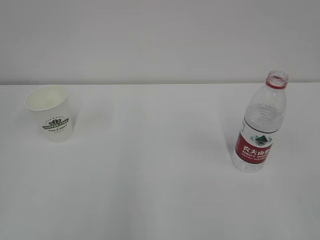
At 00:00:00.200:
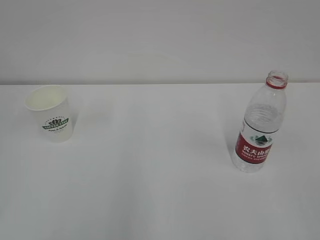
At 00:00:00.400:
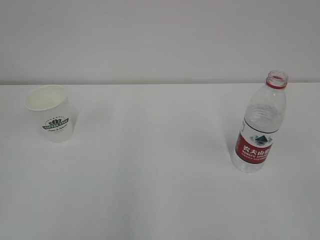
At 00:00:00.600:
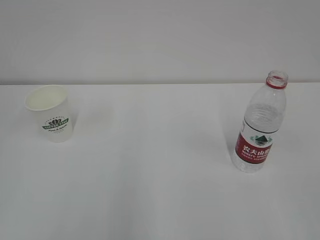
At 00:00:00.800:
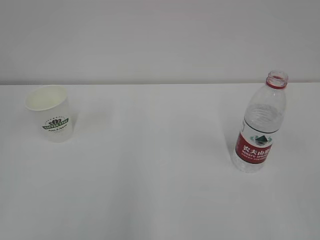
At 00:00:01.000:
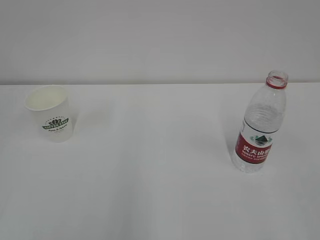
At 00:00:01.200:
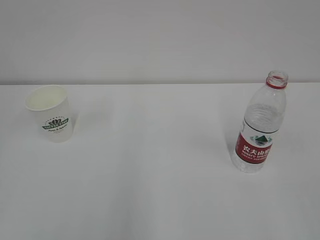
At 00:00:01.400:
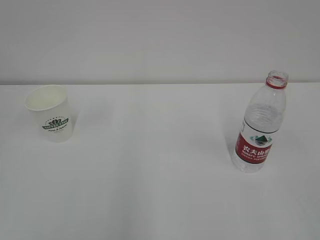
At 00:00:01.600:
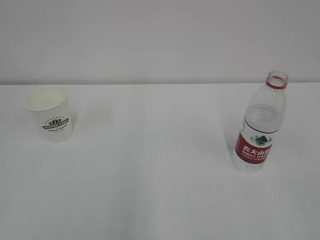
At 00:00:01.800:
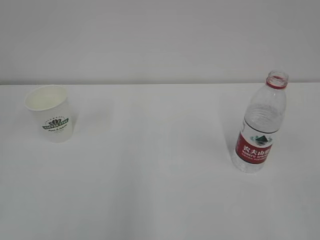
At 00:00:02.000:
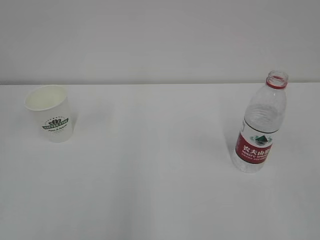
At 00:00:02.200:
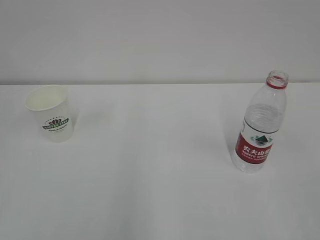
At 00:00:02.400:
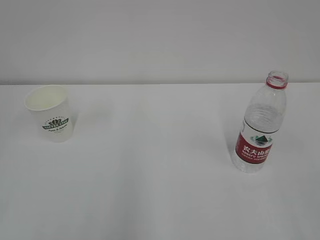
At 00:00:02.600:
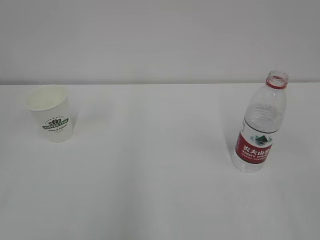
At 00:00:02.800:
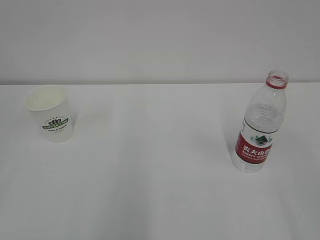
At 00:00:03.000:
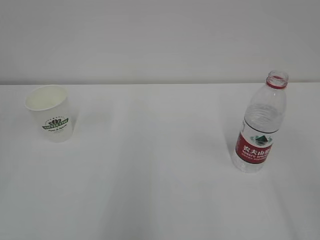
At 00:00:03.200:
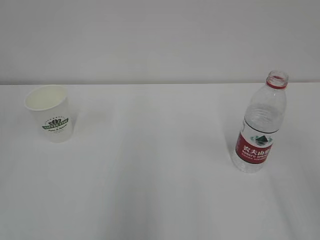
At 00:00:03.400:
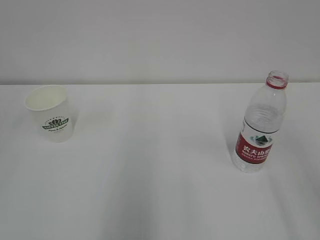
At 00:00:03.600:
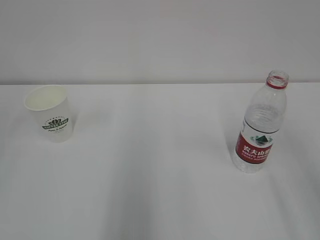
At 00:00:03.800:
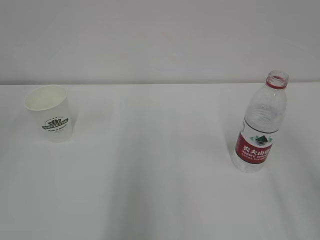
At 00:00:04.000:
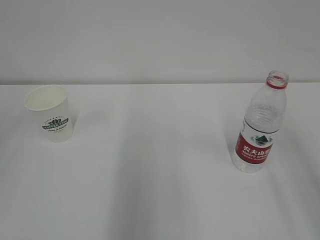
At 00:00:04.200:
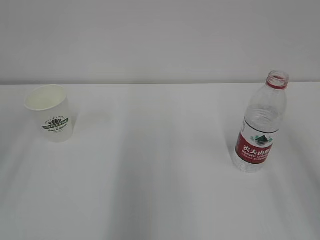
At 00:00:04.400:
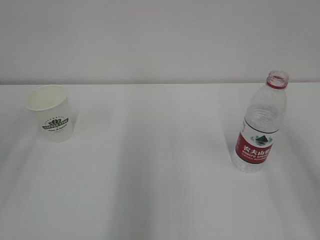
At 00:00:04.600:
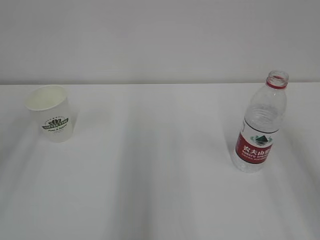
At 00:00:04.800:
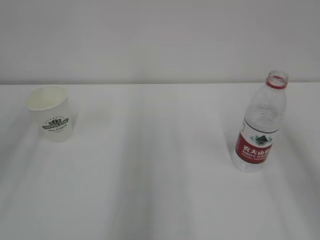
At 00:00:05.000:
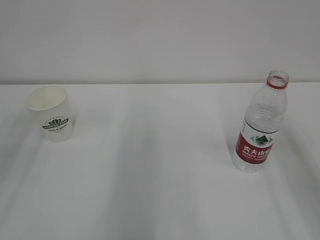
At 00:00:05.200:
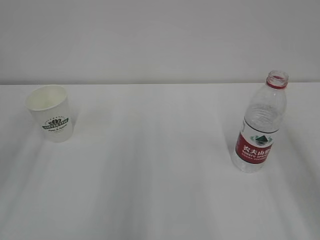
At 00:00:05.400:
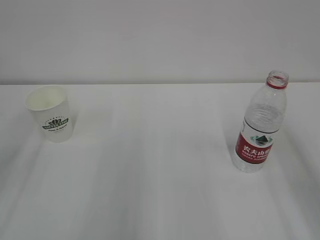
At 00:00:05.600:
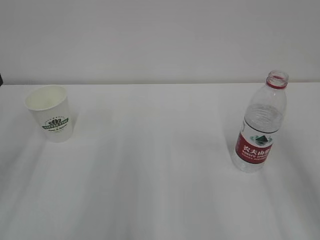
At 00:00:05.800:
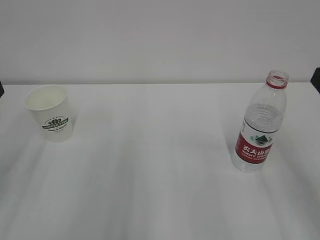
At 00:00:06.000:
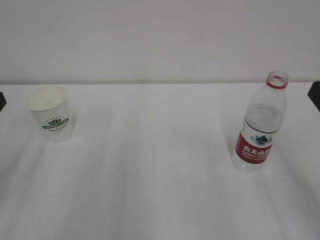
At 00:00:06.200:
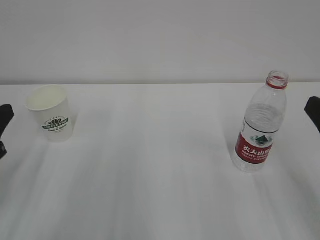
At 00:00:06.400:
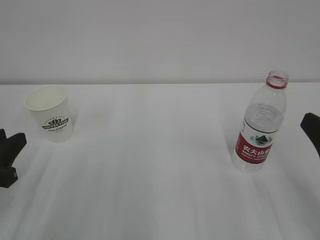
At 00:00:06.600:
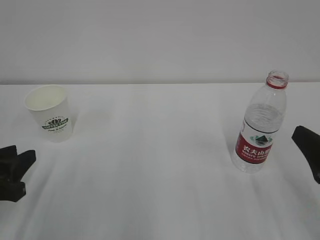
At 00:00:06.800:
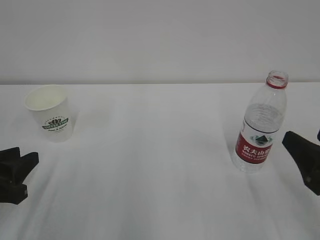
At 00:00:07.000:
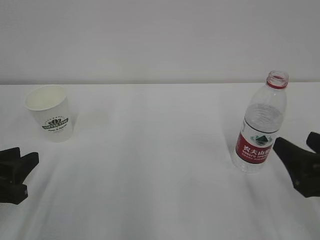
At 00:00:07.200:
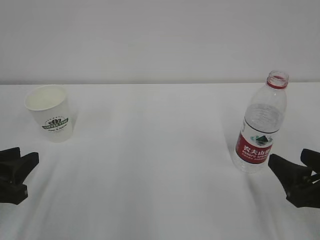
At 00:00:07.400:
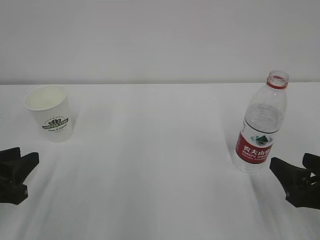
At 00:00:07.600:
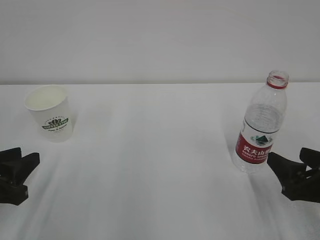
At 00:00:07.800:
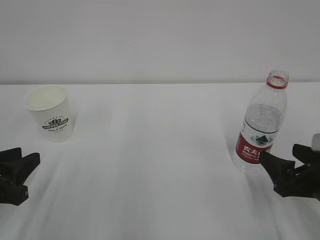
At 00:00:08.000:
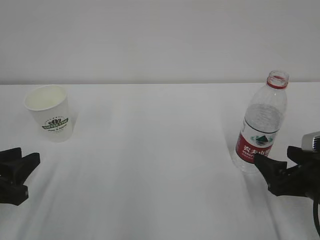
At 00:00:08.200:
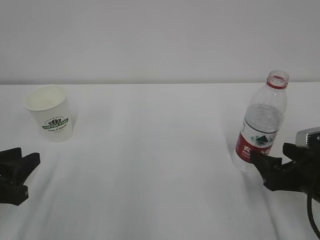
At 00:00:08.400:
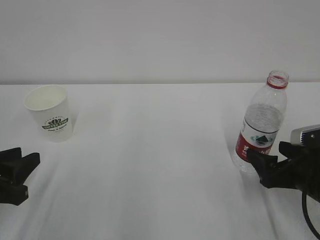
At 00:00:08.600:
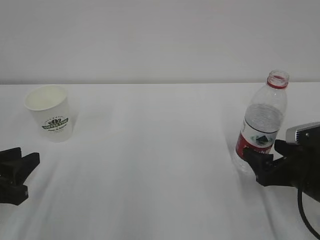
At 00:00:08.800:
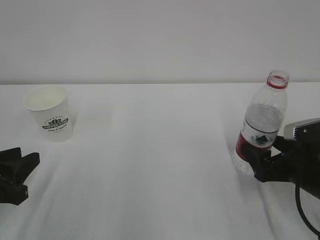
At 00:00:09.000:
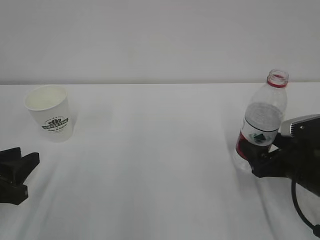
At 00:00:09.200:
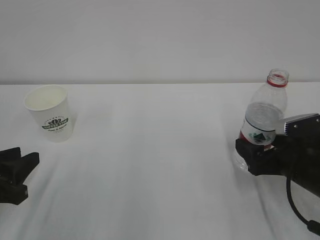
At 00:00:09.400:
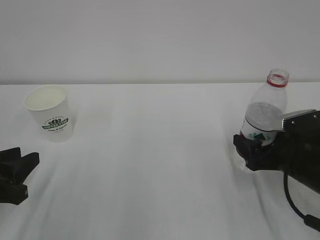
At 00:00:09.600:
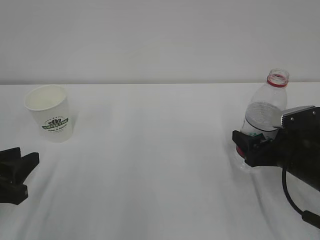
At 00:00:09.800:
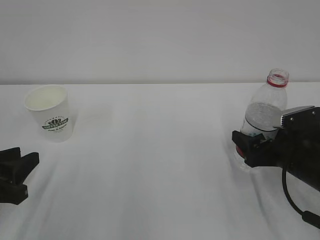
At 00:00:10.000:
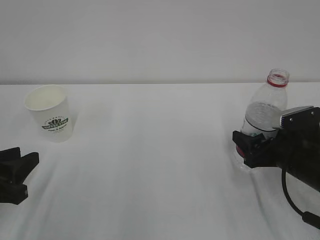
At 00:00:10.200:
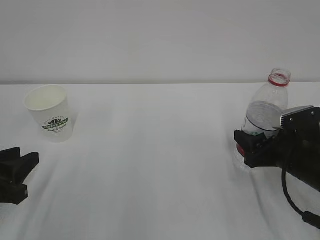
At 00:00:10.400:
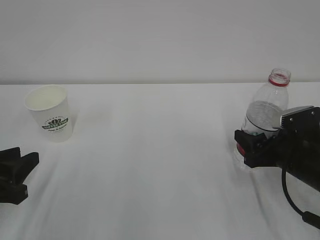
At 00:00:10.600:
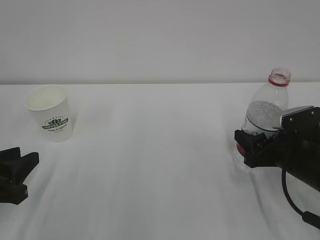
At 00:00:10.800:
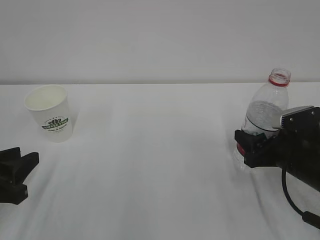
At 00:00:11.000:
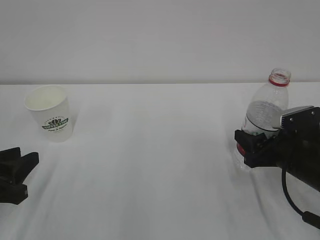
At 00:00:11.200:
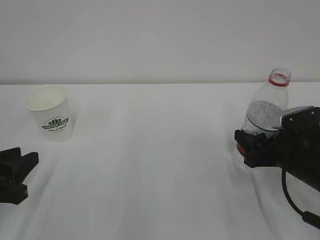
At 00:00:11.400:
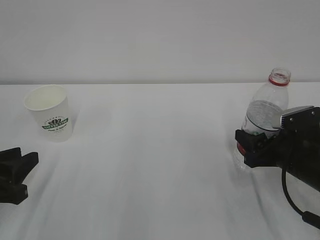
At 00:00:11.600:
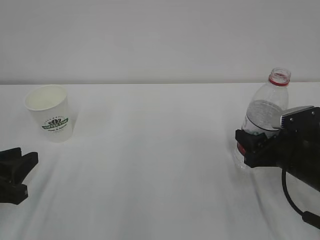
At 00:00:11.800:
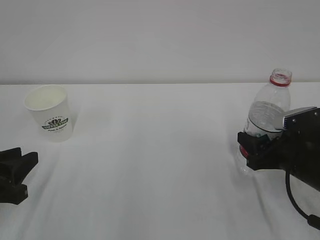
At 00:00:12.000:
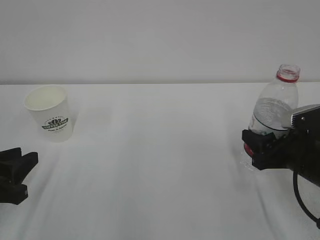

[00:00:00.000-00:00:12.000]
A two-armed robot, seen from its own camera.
00:00:06.000 to 00:00:07.600: The grippers both shift downward by some 10 cm.
00:00:07.600 to 00:00:09.000: The right gripper moves forward, some 5 cm.
00:00:09.000 to 00:00:10.400: The right gripper closes.
00:00:10.400 to 00:00:12.000: The grippers move only a little.

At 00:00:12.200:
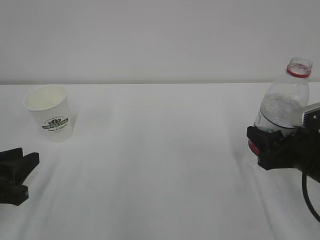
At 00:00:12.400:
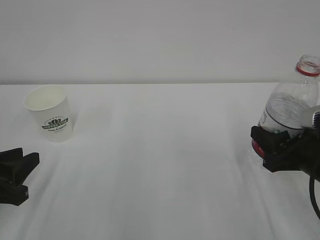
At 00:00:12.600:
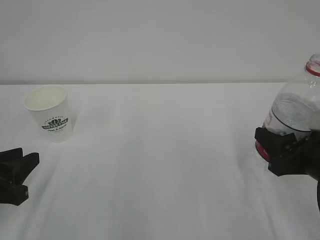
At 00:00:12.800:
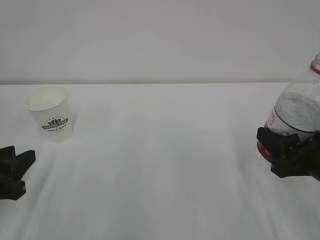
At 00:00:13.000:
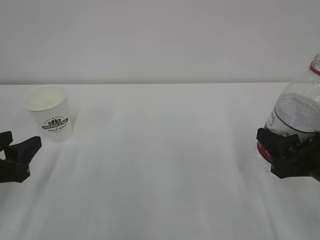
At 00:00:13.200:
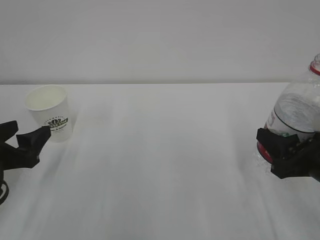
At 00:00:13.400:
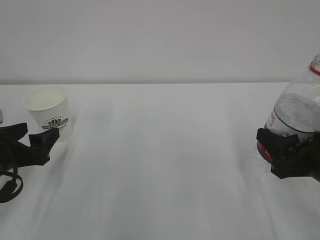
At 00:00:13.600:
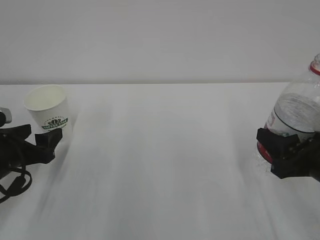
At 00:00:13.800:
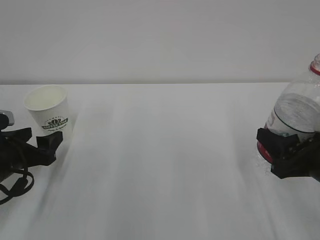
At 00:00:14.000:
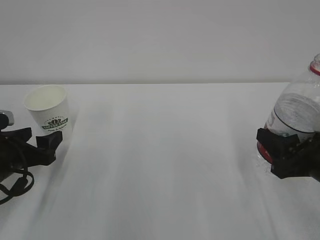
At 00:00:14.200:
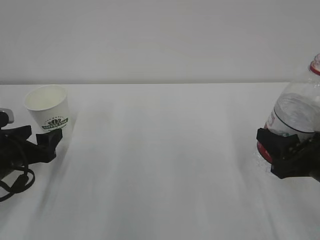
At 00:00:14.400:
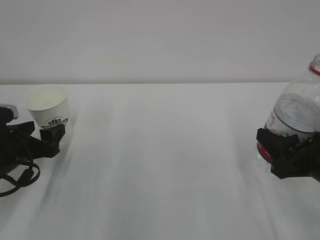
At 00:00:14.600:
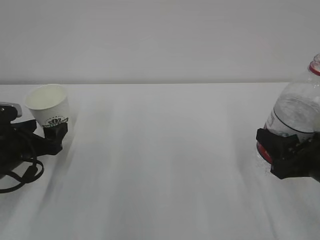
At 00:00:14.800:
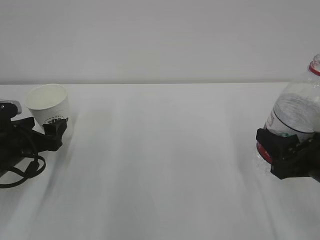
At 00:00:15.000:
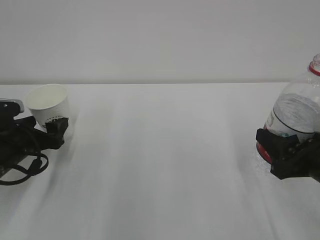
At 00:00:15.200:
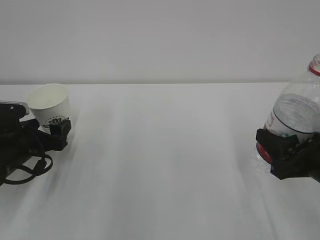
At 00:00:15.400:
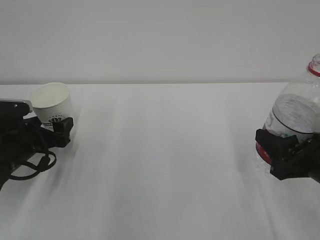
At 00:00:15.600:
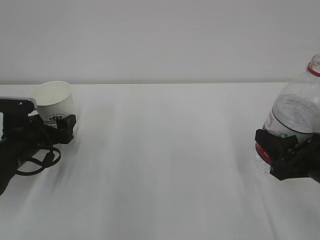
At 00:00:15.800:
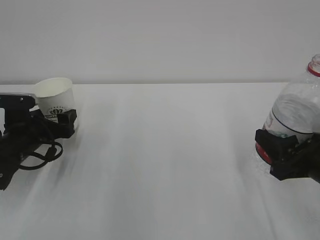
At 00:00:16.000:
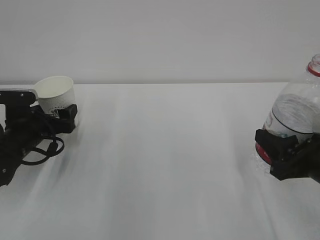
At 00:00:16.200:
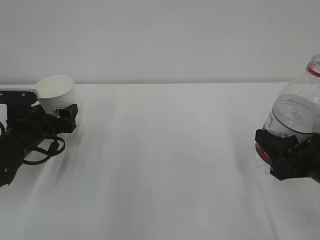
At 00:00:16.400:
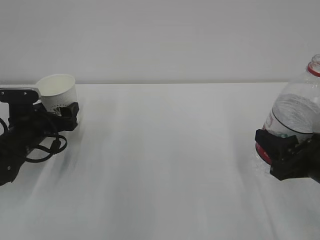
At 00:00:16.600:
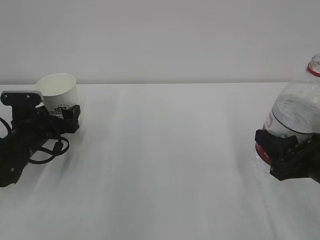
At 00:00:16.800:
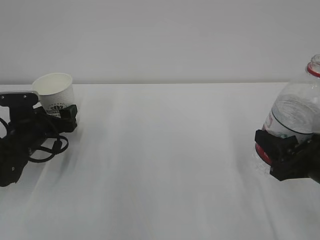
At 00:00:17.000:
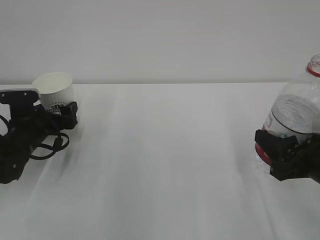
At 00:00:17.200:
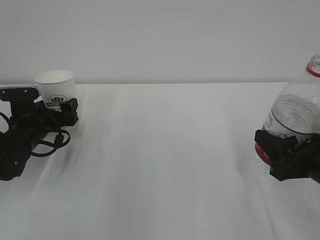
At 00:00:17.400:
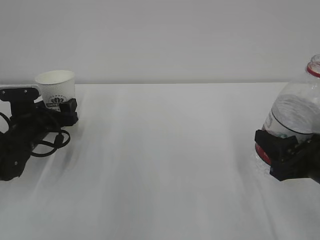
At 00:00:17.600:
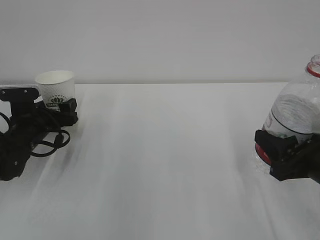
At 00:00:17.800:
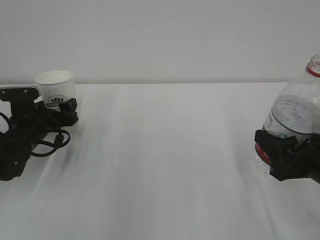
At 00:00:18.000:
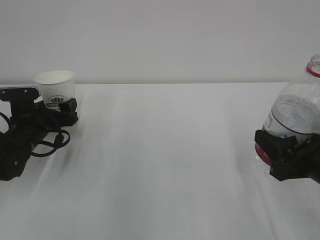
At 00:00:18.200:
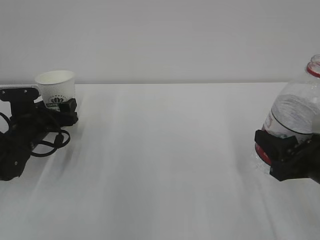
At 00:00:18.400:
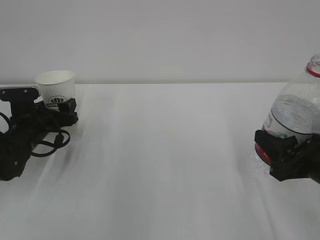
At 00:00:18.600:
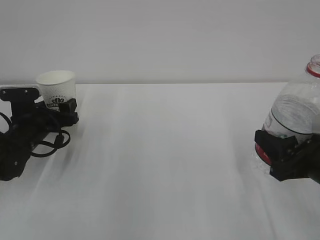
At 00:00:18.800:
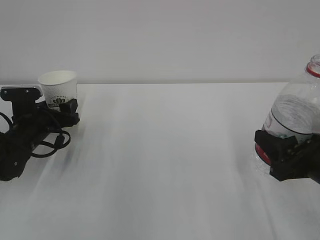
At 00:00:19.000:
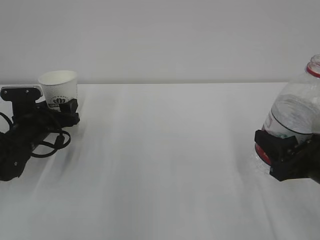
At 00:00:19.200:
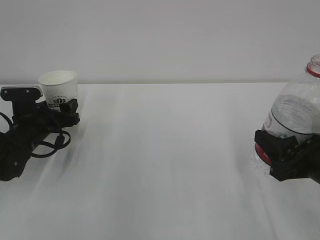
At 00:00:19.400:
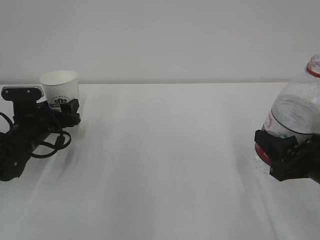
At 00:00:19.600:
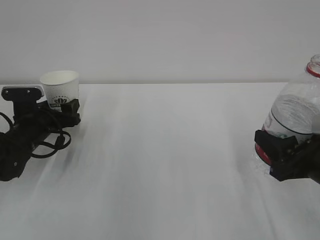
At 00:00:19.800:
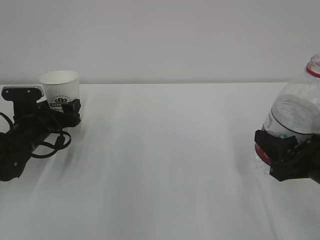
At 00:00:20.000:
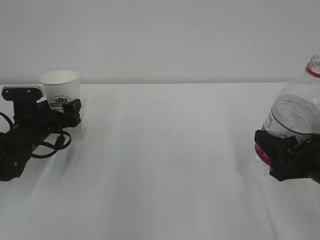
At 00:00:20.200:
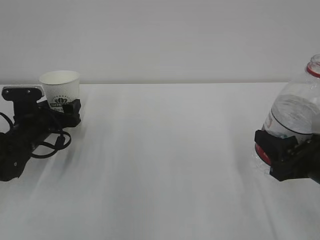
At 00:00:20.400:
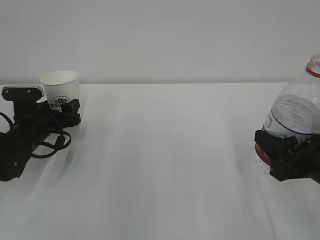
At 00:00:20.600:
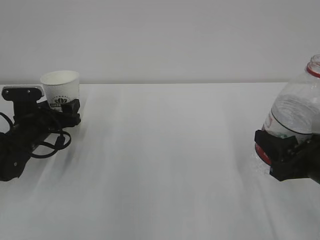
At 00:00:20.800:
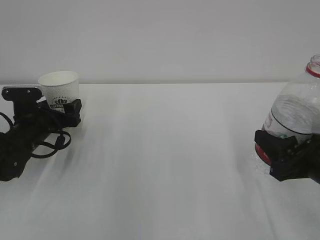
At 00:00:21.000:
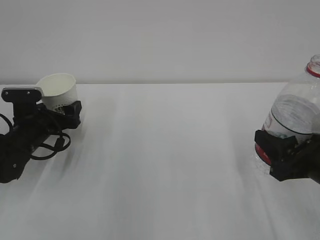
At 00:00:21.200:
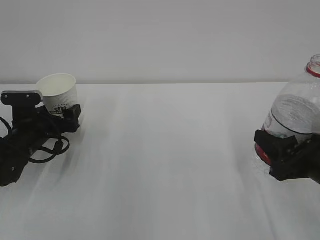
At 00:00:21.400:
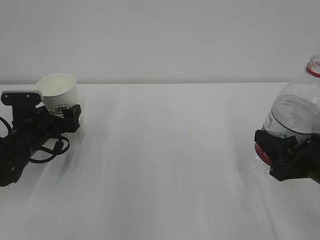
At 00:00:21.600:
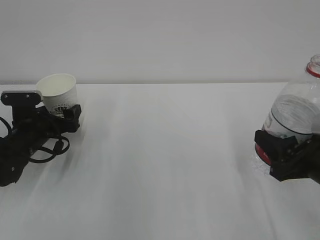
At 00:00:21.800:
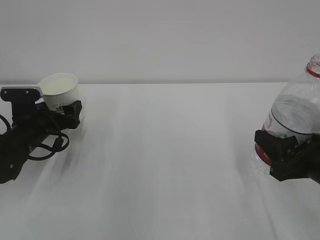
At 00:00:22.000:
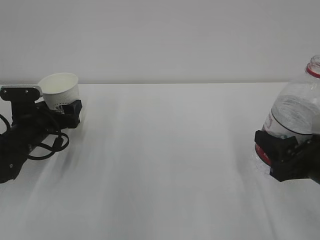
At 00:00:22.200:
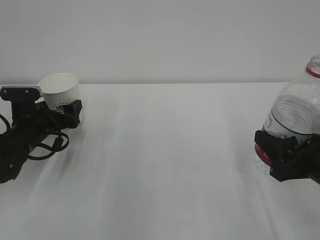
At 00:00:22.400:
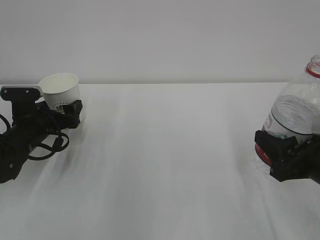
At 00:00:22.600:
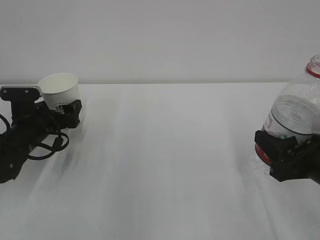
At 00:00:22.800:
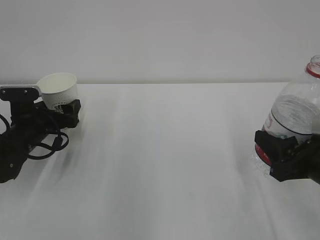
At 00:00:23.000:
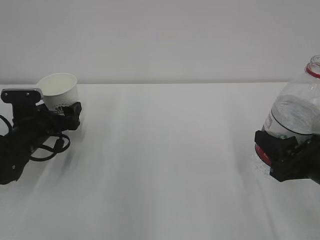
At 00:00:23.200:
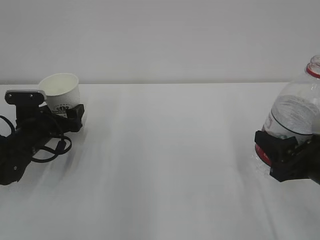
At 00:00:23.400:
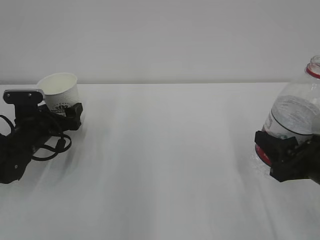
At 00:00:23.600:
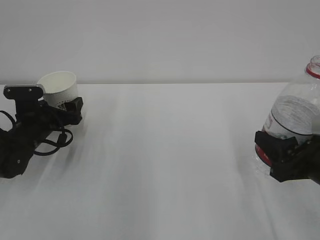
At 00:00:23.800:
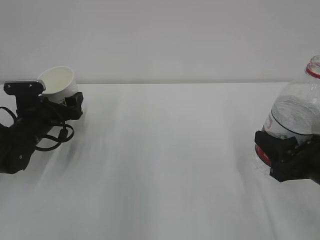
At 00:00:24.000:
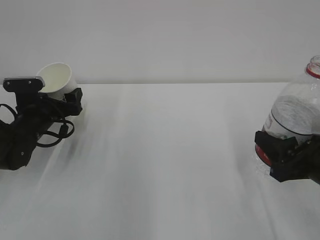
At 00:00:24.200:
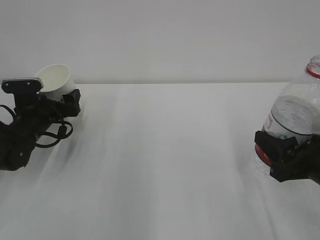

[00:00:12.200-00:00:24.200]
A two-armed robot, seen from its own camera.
00:00:12.200 to 00:00:13.800: The left gripper is displaced forward by approximately 10 cm, and opens.
00:00:13.800 to 00:00:15.200: The grippers stay close to where they were, moving slightly.
00:00:15.200 to 00:00:16.600: The left gripper shifts approximately 5 cm forward.
00:00:16.600 to 00:00:22.600: Both grippers stay about where they are.
00:00:22.600 to 00:00:24.200: The grippers make only small movements.
